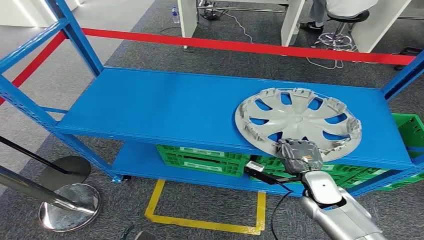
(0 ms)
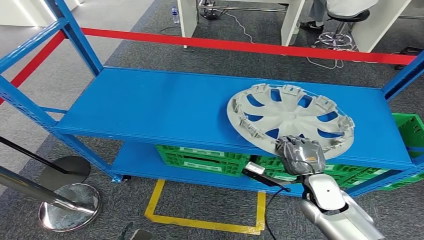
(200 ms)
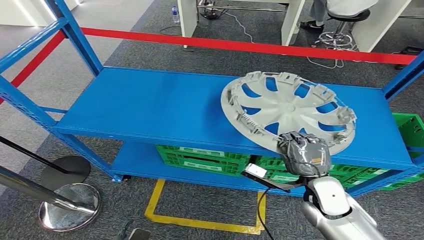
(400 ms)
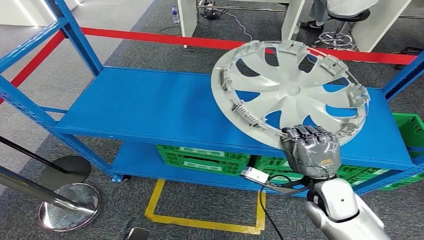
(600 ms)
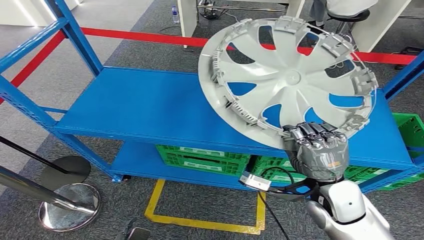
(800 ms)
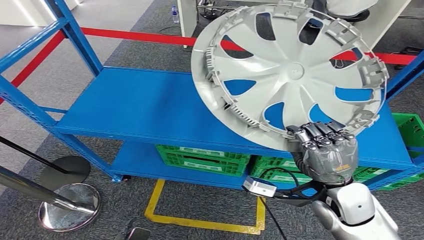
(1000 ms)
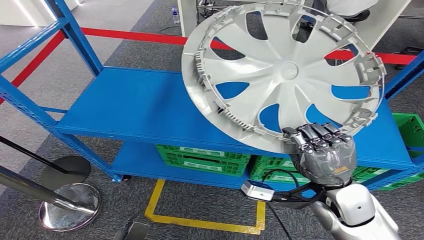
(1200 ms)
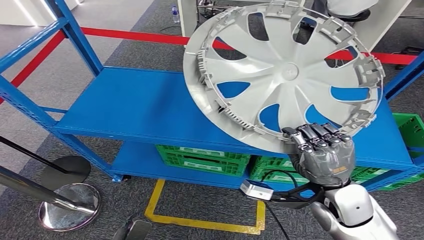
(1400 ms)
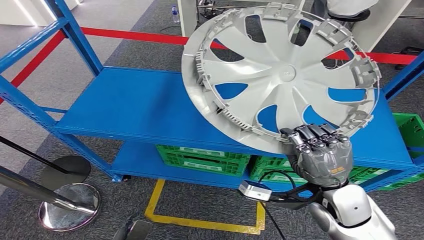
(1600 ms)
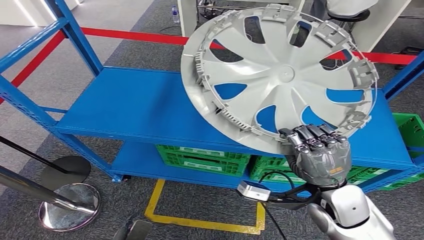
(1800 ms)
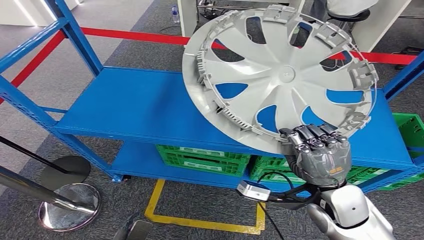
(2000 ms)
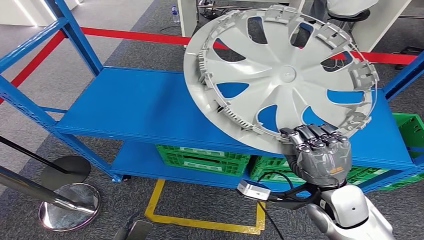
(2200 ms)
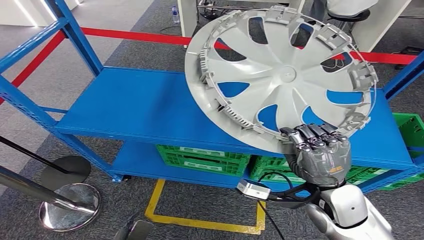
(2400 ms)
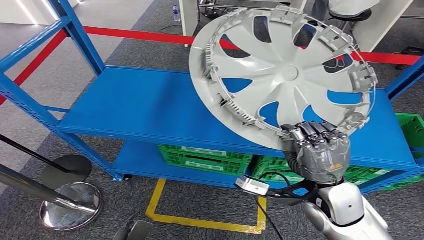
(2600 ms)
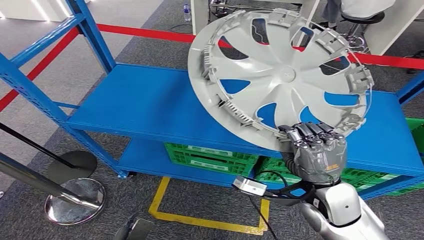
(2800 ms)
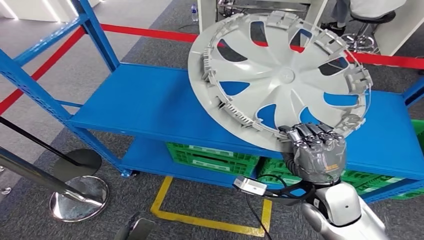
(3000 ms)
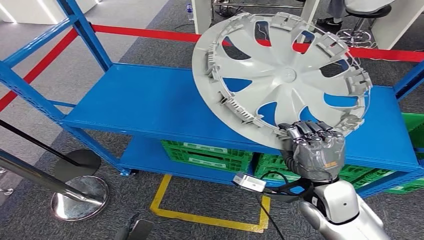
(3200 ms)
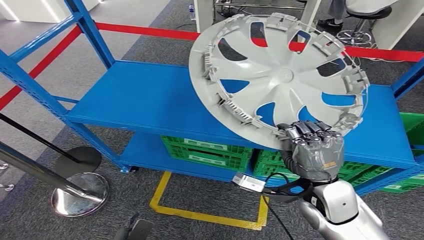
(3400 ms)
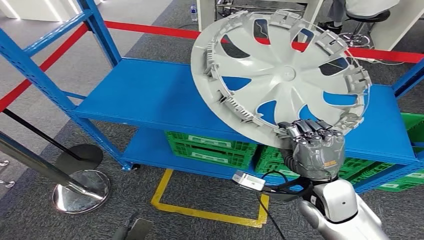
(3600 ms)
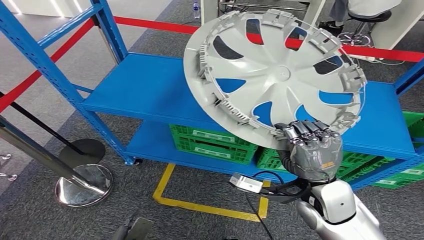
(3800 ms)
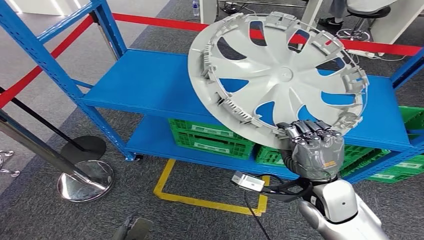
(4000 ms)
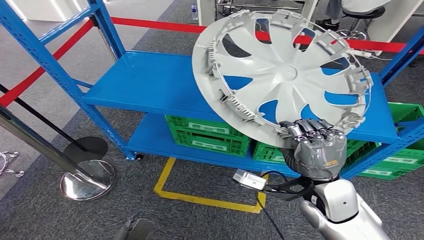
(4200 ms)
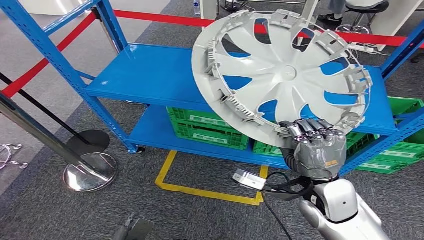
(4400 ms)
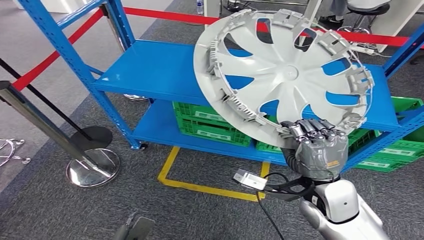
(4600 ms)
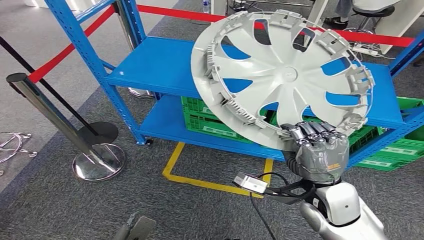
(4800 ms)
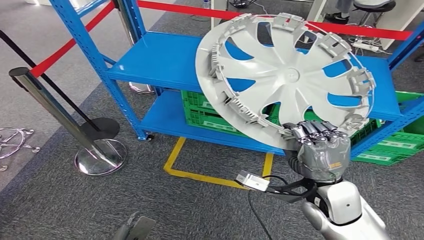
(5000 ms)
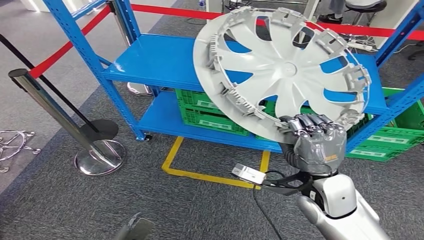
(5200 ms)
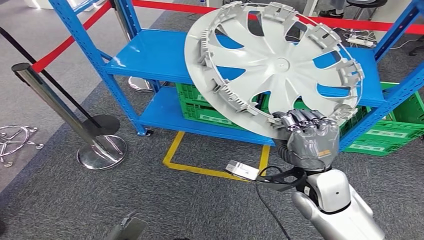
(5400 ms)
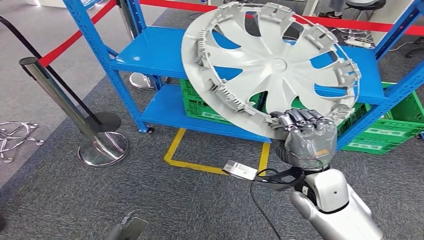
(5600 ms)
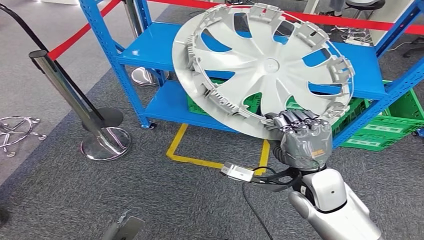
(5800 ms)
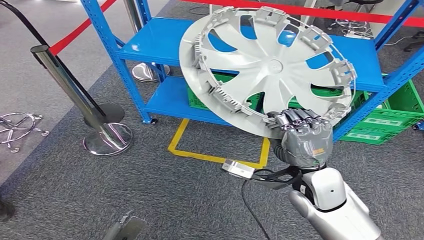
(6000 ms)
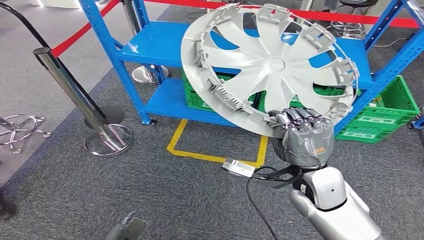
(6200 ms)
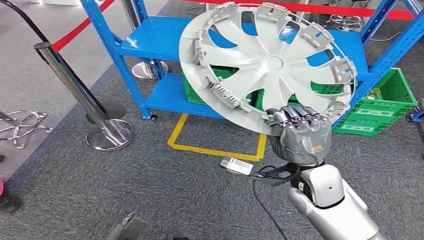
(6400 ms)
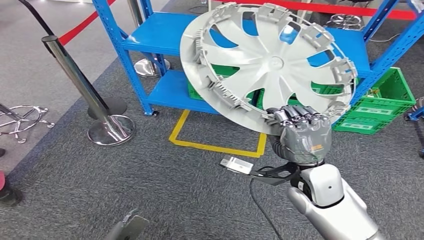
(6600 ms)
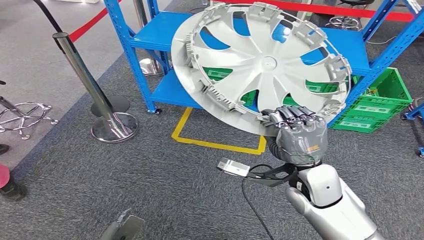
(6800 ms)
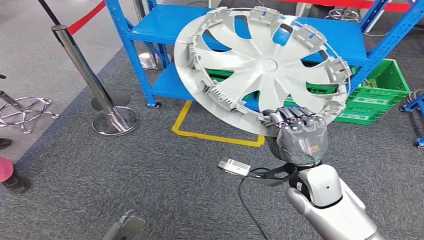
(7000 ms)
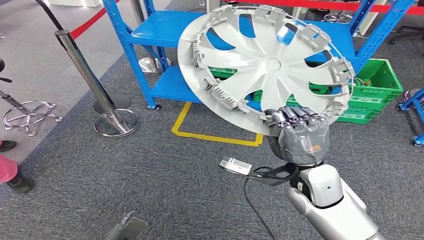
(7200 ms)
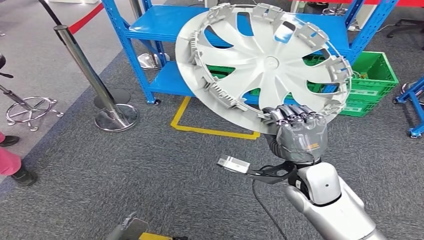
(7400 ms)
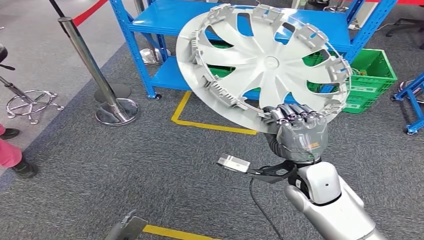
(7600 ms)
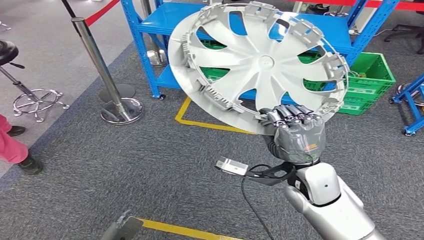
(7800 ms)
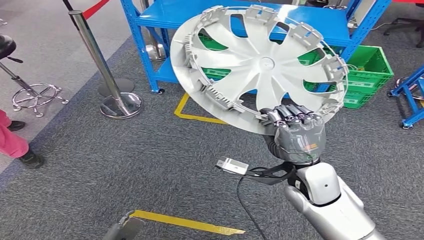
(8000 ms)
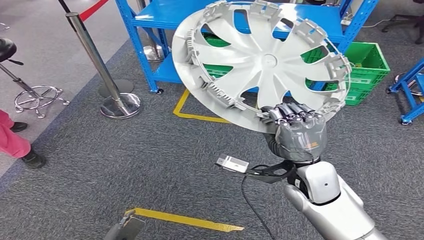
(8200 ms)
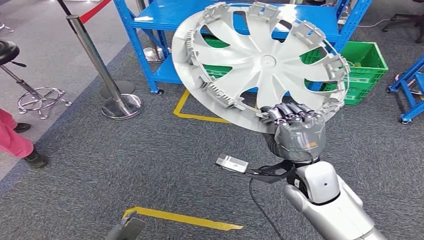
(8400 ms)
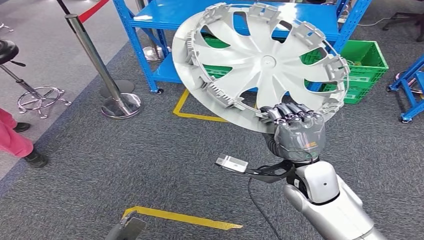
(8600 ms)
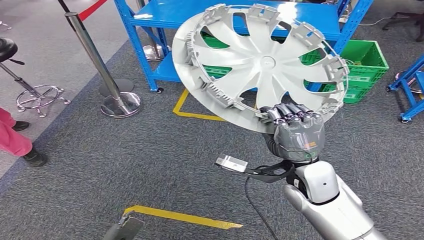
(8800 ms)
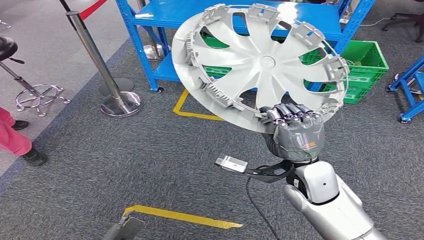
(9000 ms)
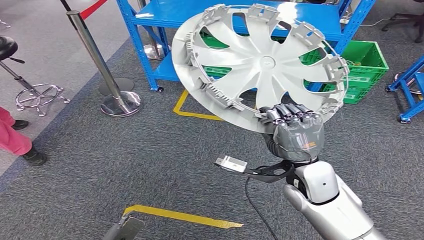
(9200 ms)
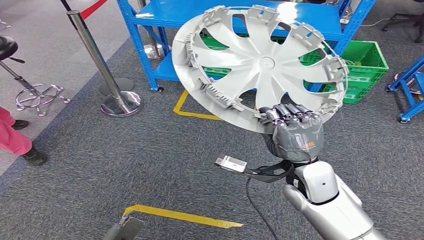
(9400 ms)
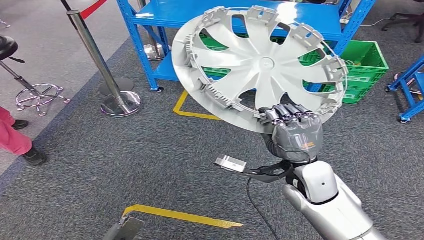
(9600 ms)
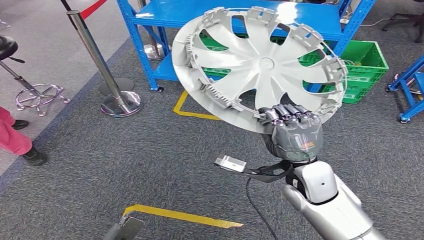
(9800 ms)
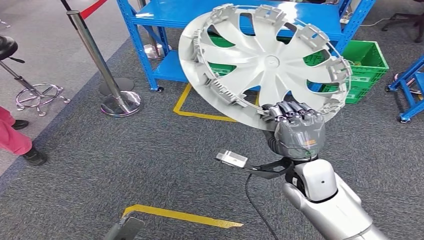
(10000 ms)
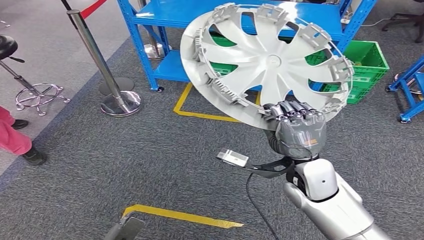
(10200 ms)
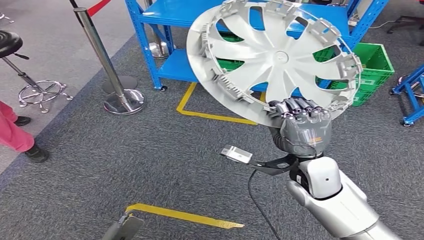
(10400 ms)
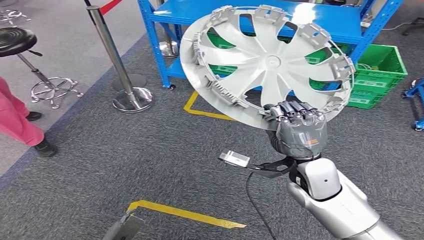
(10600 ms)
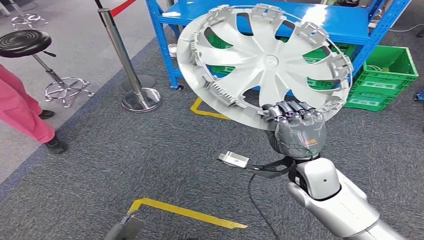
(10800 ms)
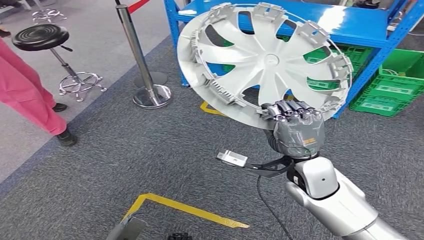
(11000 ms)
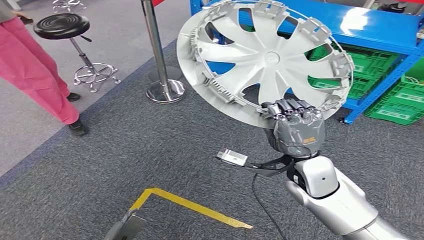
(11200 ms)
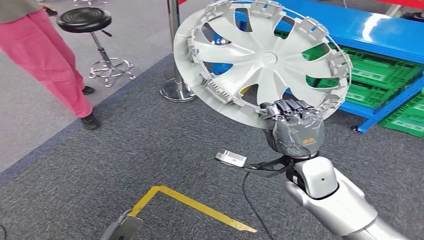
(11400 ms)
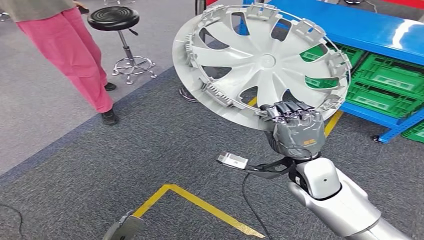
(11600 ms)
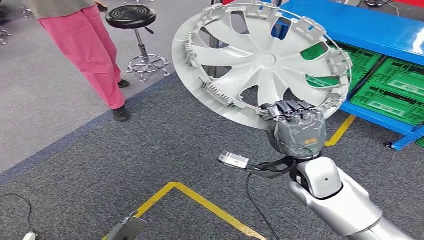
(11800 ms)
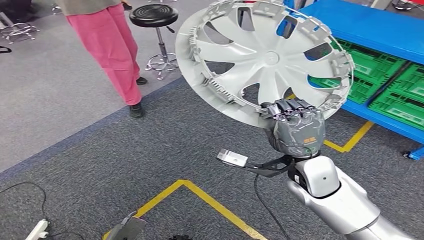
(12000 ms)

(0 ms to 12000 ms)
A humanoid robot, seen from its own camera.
Step, 0 ms - 2600 ms: Pick up the small component from the shelf.

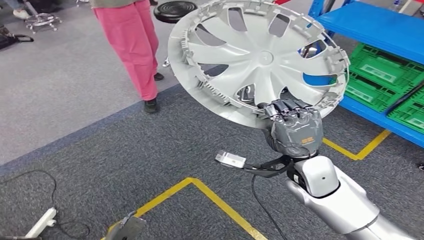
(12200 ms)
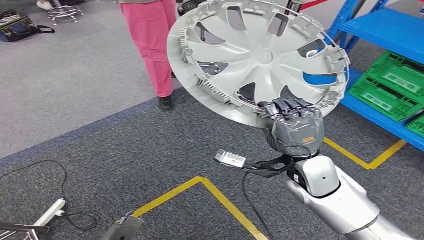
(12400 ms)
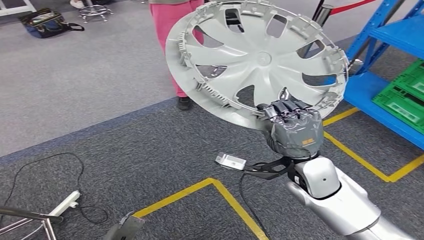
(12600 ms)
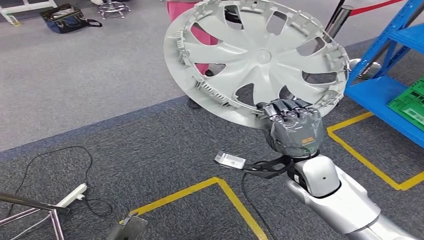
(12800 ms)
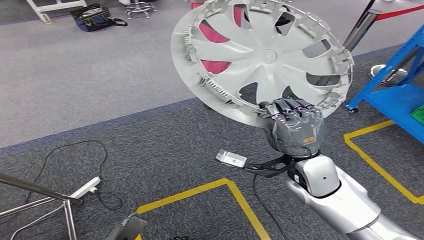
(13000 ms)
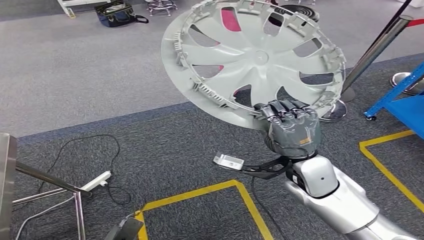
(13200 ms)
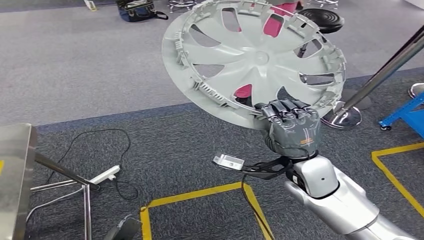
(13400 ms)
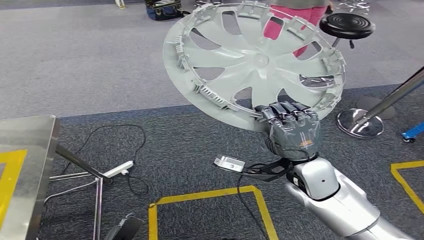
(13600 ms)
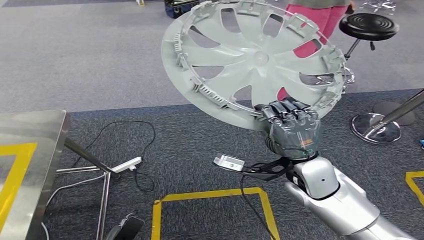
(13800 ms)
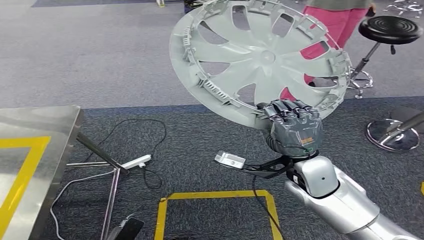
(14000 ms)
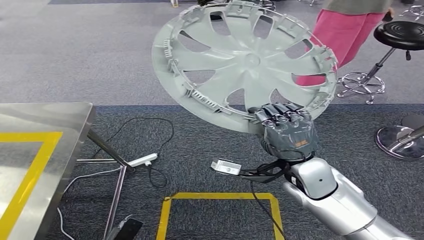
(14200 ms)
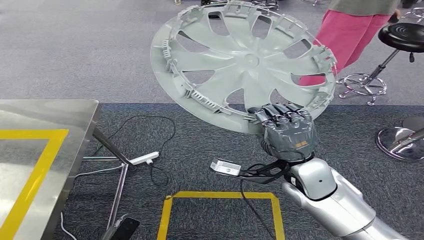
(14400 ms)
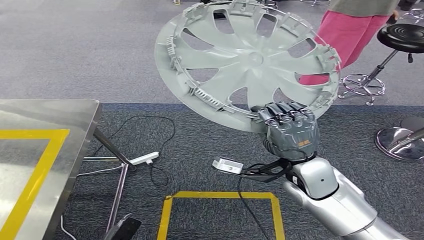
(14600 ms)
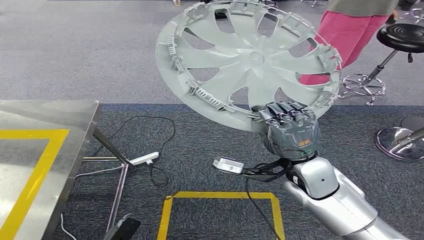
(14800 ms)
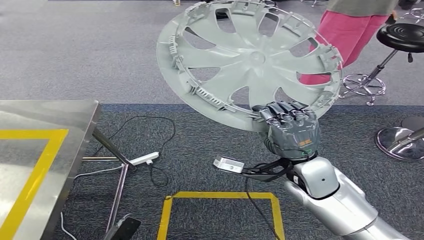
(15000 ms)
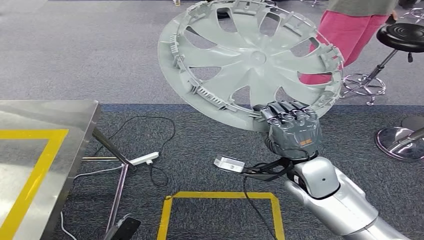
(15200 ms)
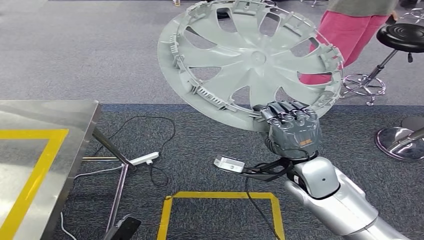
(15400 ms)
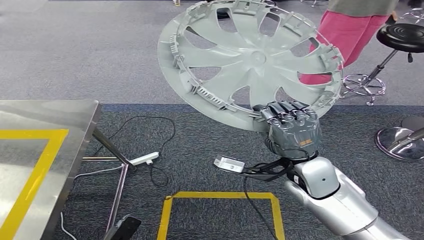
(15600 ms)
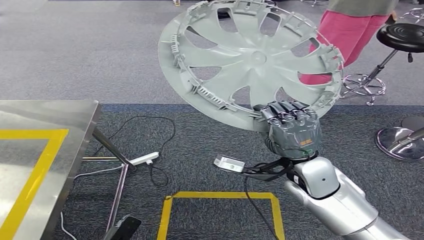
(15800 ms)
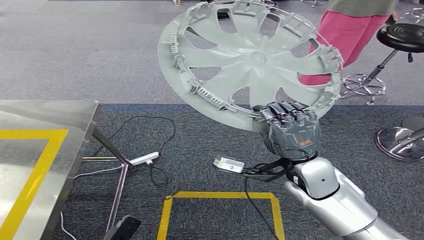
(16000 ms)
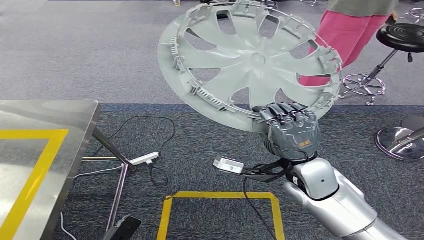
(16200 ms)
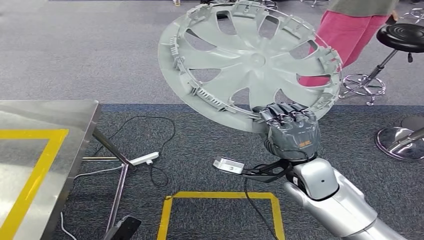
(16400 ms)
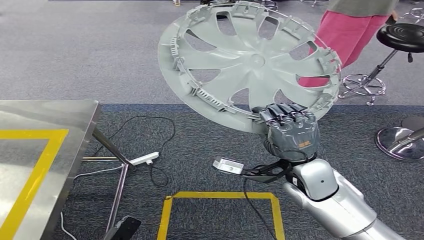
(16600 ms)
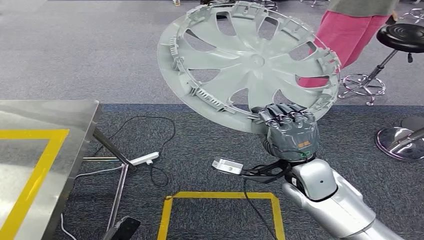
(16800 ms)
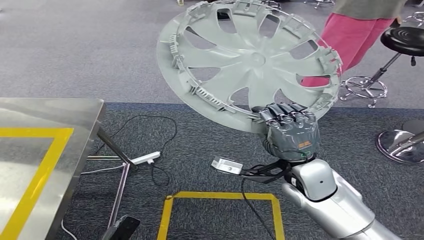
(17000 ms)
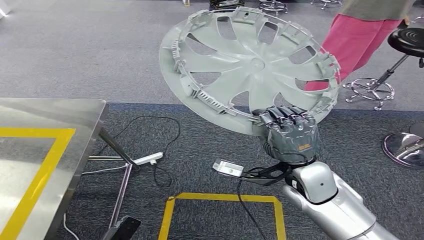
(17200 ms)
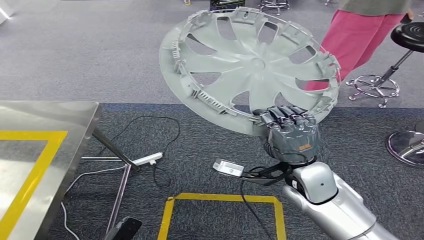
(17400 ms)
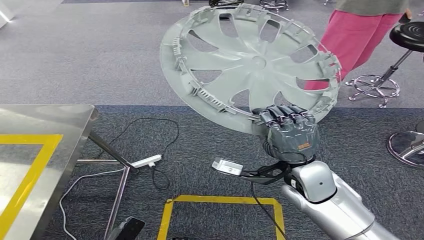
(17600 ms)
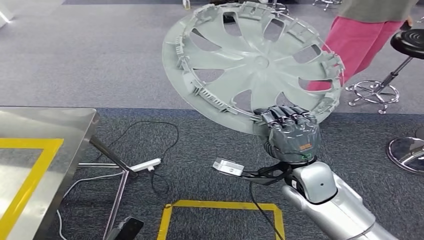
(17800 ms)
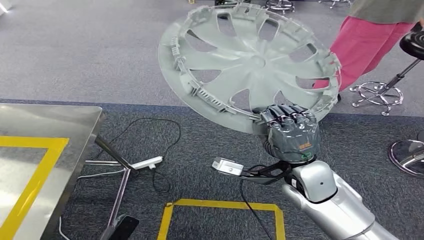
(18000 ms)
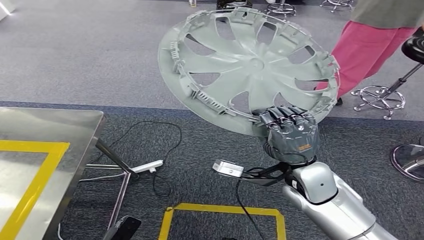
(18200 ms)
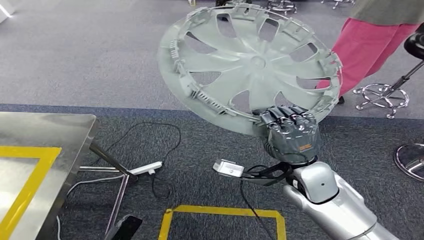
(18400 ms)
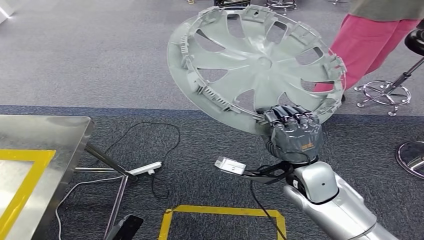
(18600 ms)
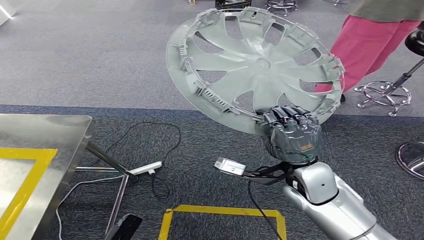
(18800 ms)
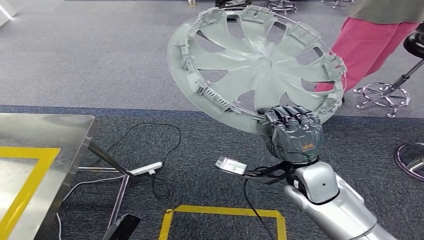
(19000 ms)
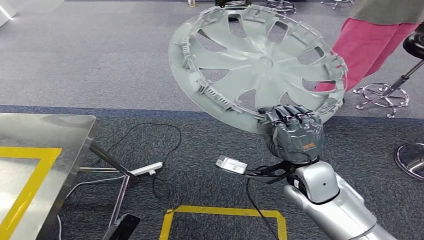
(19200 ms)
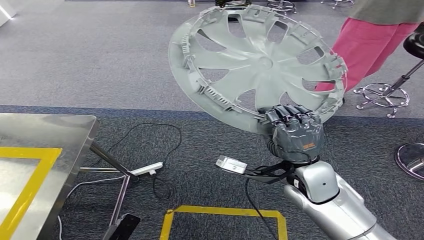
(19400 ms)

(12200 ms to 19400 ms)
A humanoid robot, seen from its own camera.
15000 ms - 18000 ms: The two hands keep their place.
18000 ms - 19400 ms: Both hands stay put.
